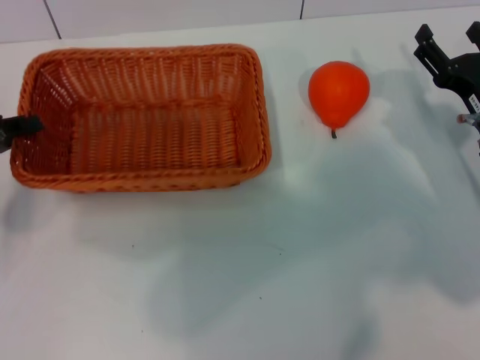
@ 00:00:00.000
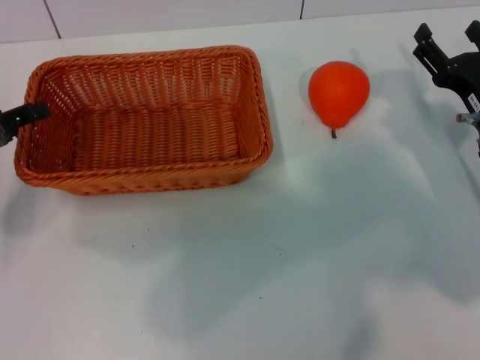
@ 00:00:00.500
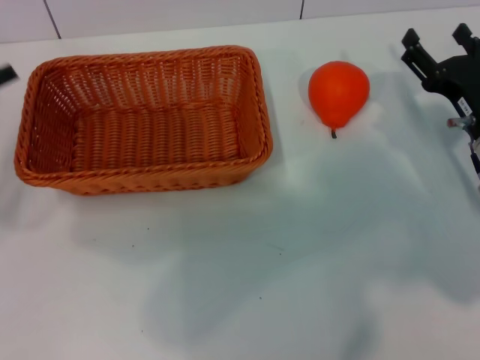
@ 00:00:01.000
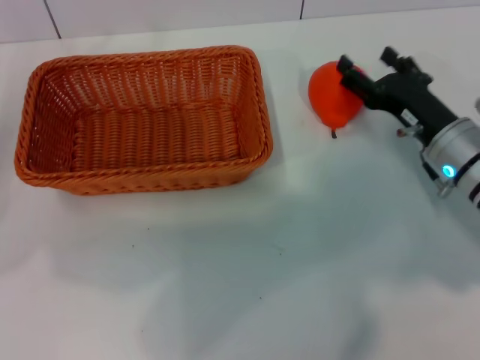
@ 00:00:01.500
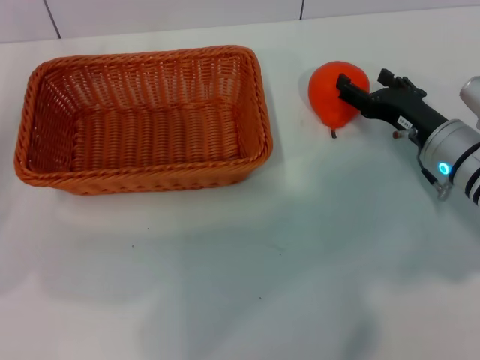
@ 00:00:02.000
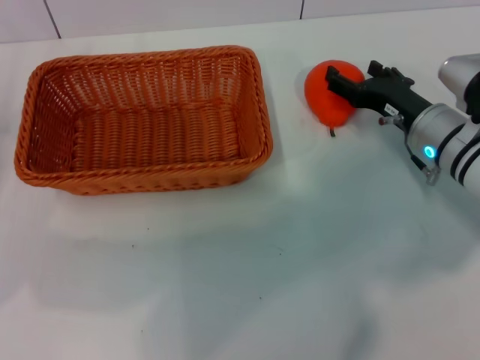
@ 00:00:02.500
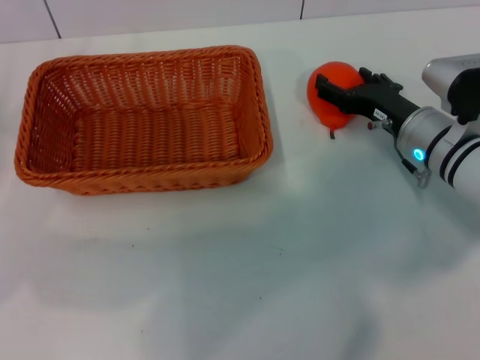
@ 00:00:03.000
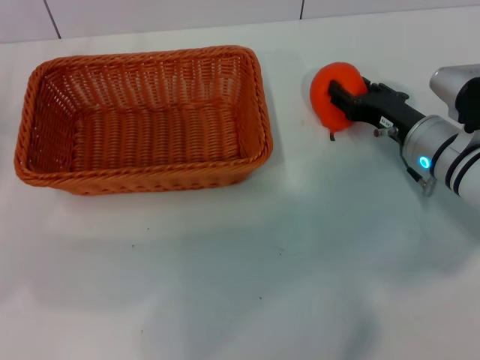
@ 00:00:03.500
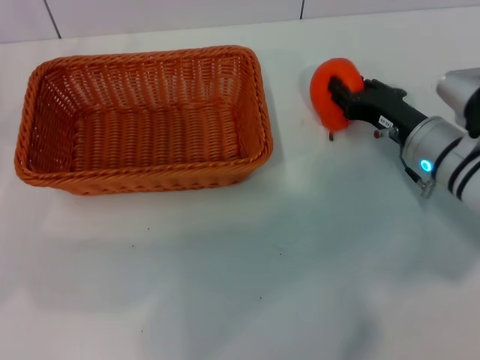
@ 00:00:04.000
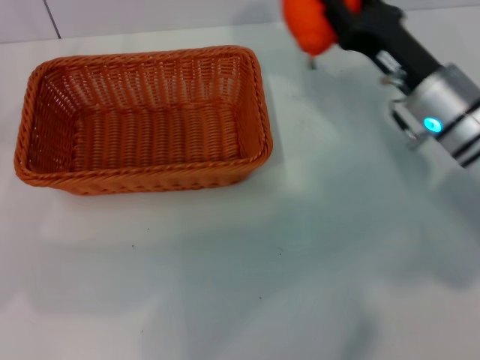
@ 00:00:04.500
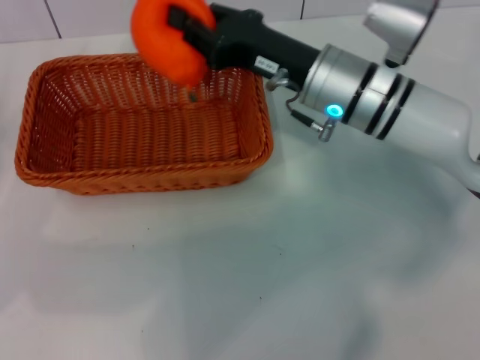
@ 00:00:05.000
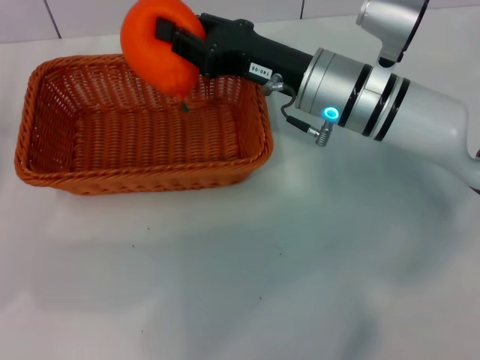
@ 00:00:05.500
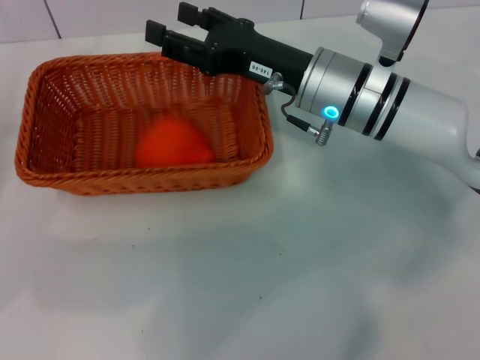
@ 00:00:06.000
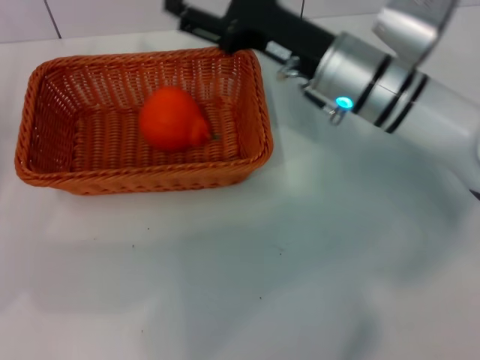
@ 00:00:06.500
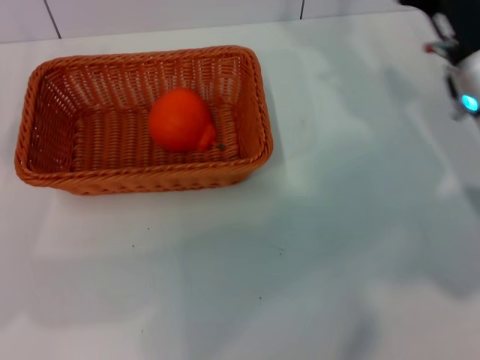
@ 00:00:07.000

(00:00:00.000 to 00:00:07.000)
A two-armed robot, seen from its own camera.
Task of the whole recording: the left gripper pick up the yellow basket and place it horizontally in the middle of the table, the right gripper pick up the orange and place it into the yellow basket.
Step, 00:00:01.000 - 00:00:04.000: Pick up the orange with the right gripper.
Step, 00:00:04.500 - 00:00:06.000: Place the orange into the light basket with the right gripper.
00:00:00.000 - 00:00:02.000: The left gripper opens up.
00:00:02.000 - 00:00:03.500: The right gripper closes.
00:00:03.500 - 00:00:05.000: The right gripper travels to the left and upward by about 15 cm, and closes its fingers.
00:00:05.000 - 00:00:07.000: The right gripper moves to the right, some 10 cm, and opens its fingers.
